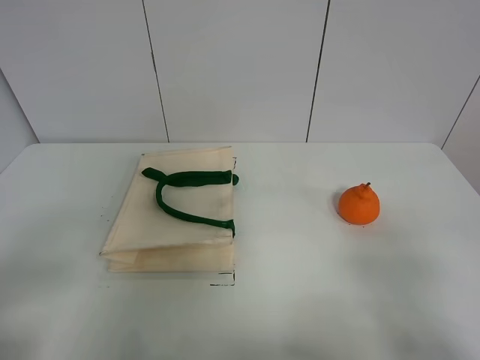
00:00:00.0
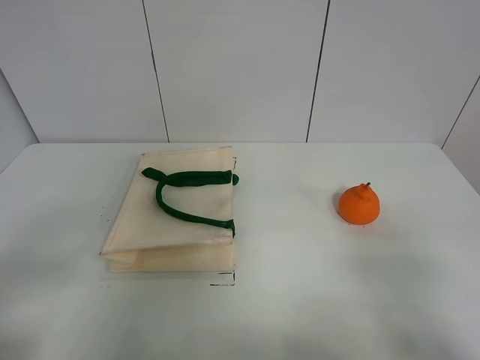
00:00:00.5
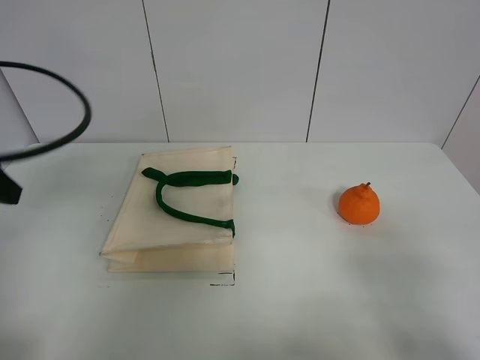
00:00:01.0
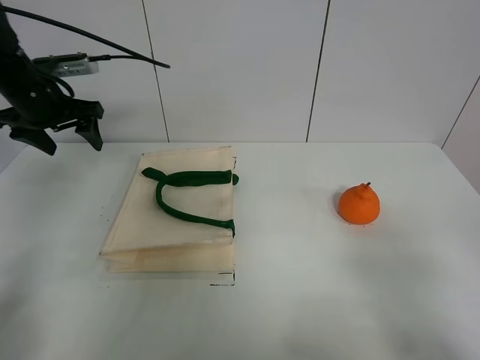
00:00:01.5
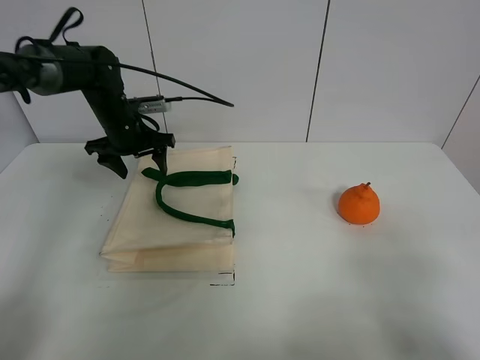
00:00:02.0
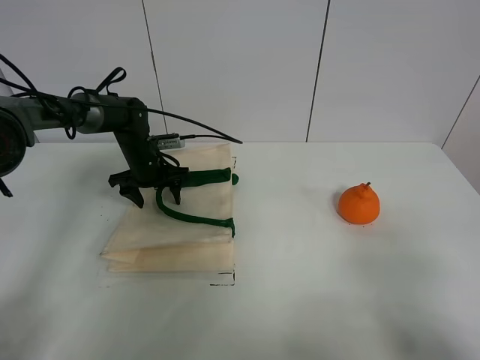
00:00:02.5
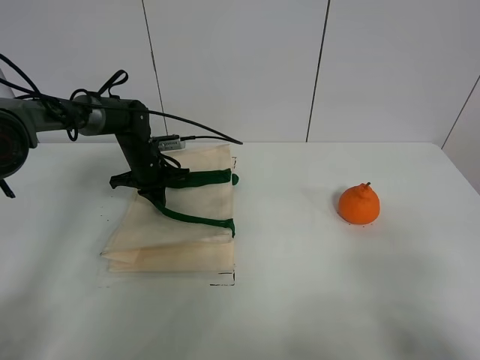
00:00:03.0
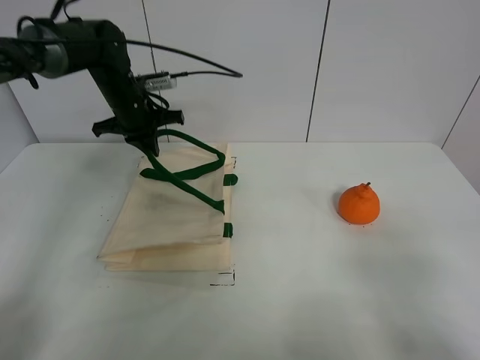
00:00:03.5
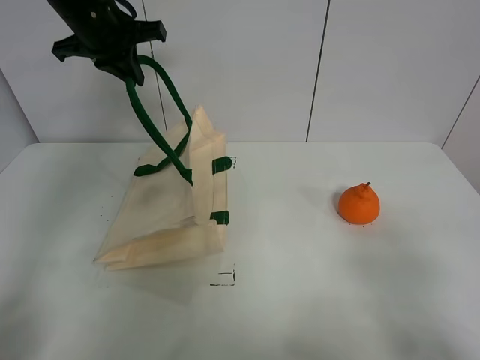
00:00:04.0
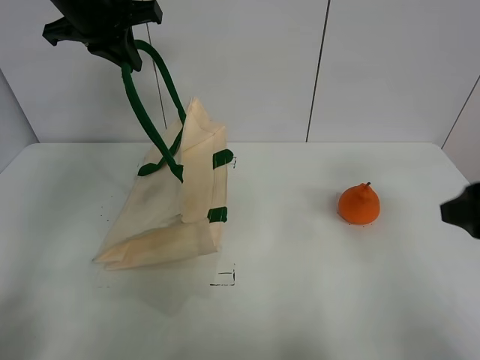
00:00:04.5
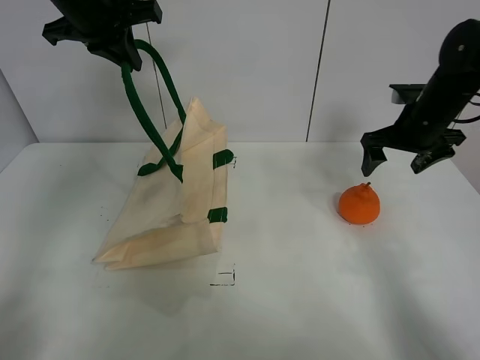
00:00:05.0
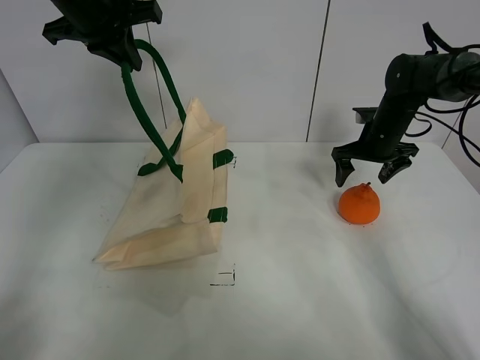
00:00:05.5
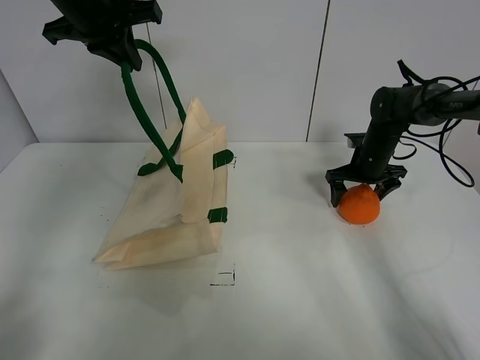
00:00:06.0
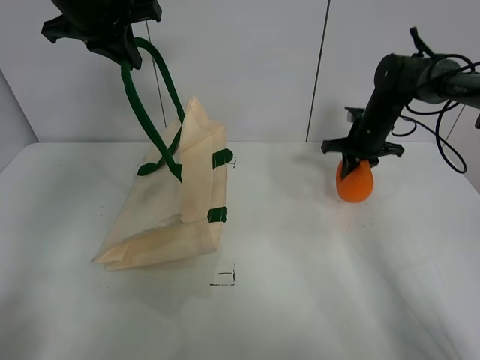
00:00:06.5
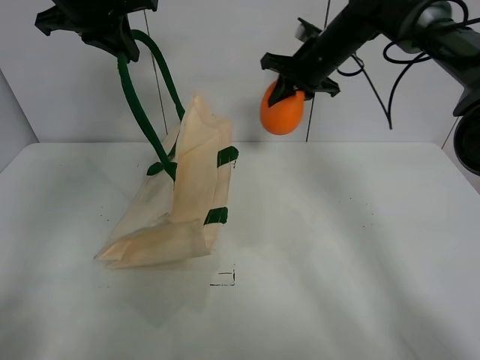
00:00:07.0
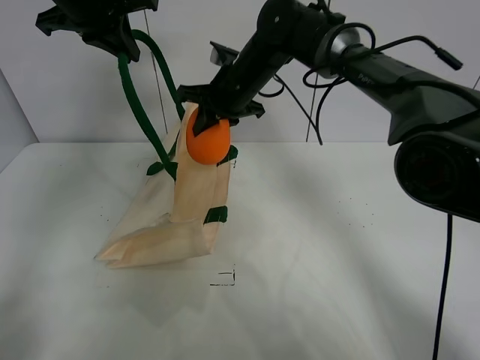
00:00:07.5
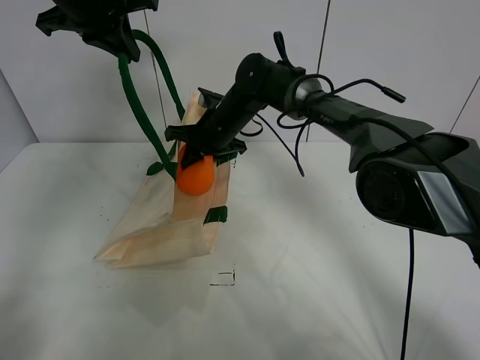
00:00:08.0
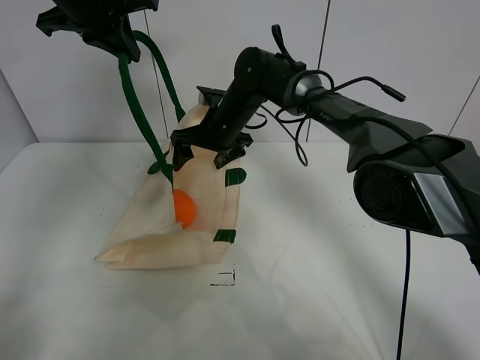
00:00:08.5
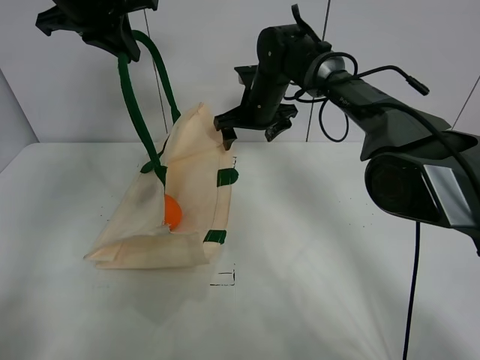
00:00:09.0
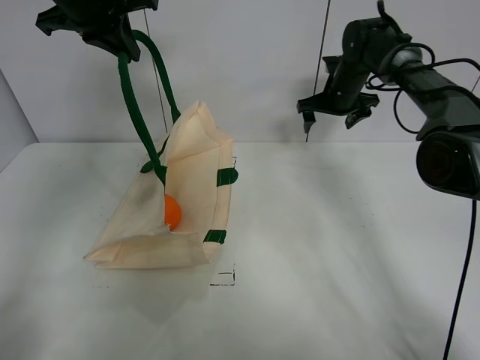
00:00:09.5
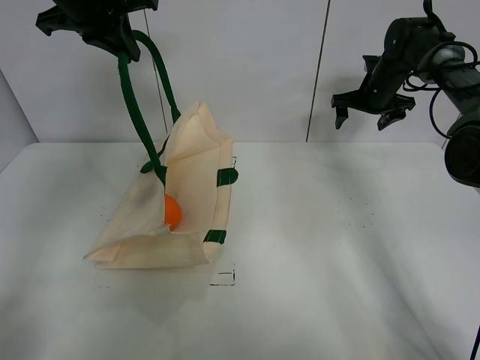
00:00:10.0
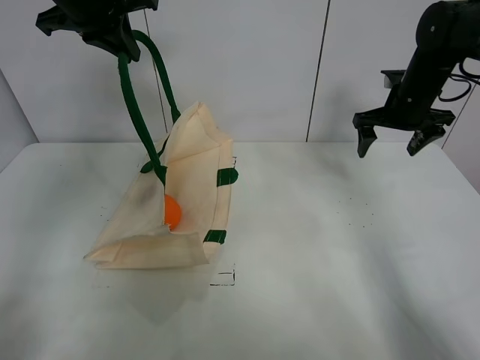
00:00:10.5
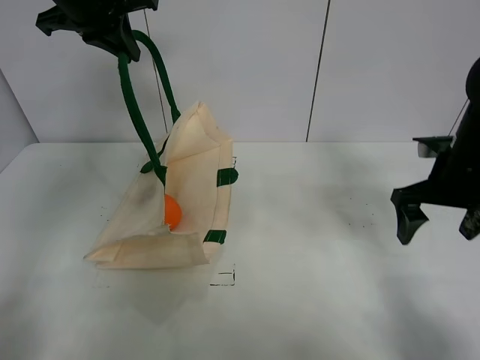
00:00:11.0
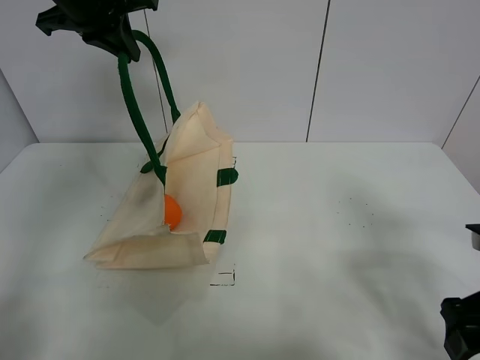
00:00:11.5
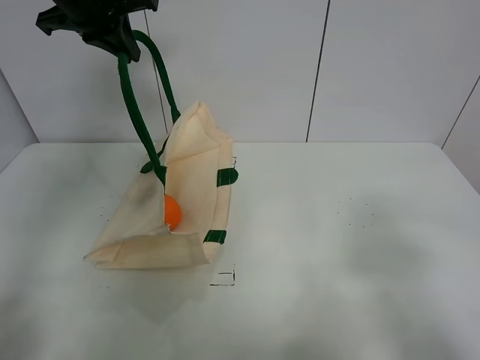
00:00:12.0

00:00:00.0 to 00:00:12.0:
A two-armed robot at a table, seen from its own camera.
Task of the whole recording: open the white linen bag and put the orange in the bag.
Step, 00:00:00.0 to 00:00:04.0: Lift the handbag with left gripper.
Step, 00:00:04.5 to 00:00:06.0: Grasp the orange with right gripper.
Step, 00:00:06.5 to 00:00:08.5: Place the orange in the handbag with right gripper.
00:00:00.0 to 00:00:02.0: The left gripper moves forward, about 50 cm.
00:00:02.0 to 00:00:04.0: The left gripper travels upward by about 20 cm, and closes.
00:00:04.0 to 00:00:06.0: The right gripper goes about 50 cm forward.
00:00:06.0 to 00:00:08.0: The right gripper shifts some 30 cm to the left, and closes.
00:00:08.0 to 00:00:10.0: The right gripper is displaced to the right by approximately 30 cm, and opens.
00:00:10.0 to 00:00:12.0: The right gripper goes some 50 cm backward.

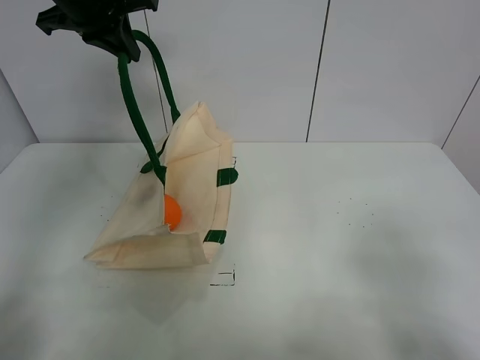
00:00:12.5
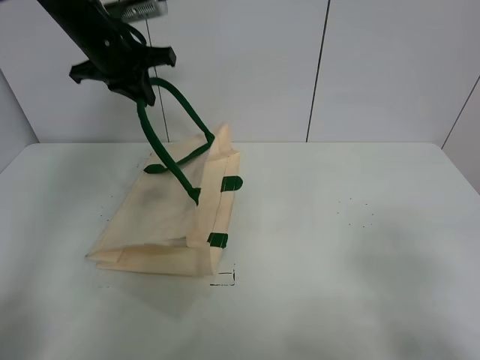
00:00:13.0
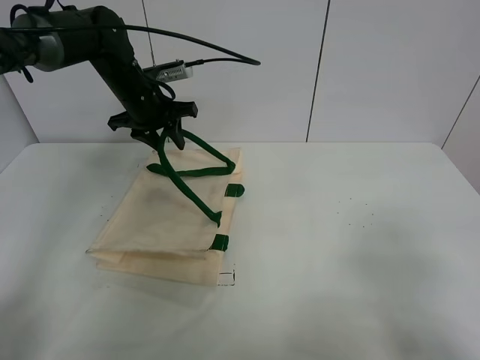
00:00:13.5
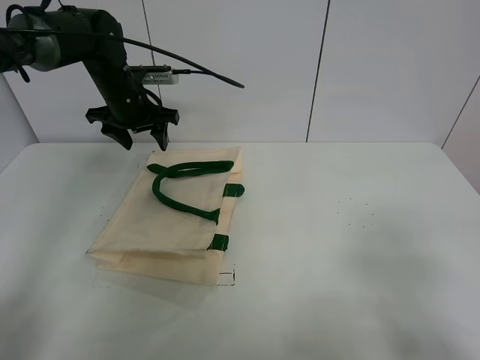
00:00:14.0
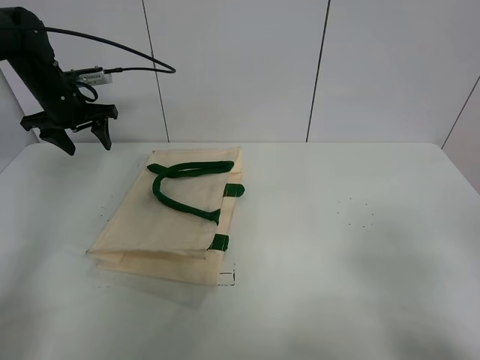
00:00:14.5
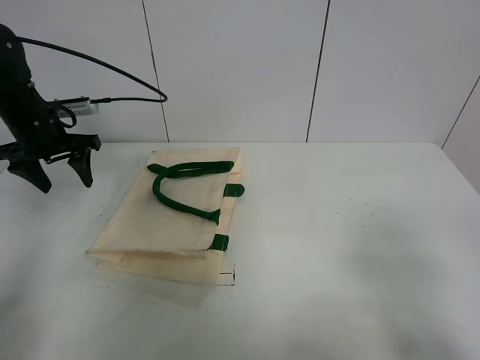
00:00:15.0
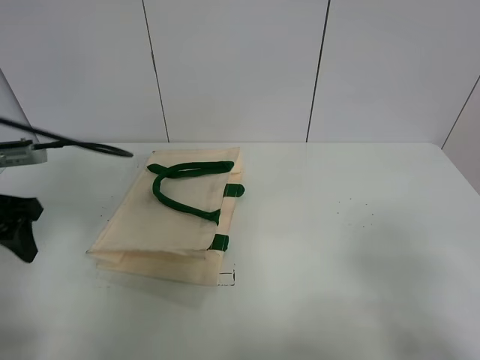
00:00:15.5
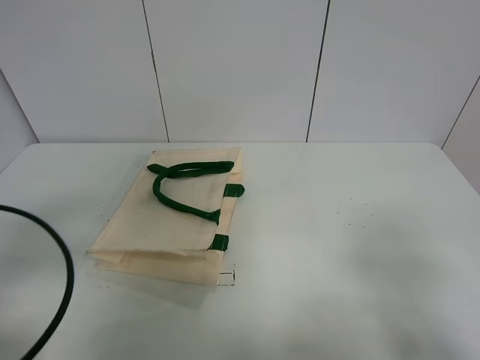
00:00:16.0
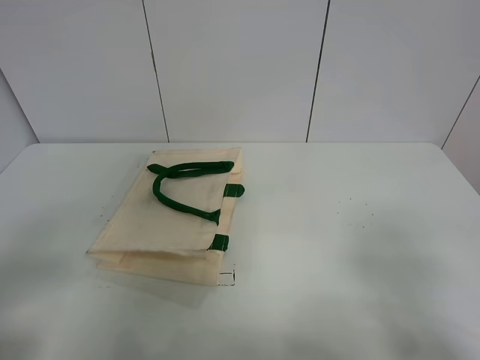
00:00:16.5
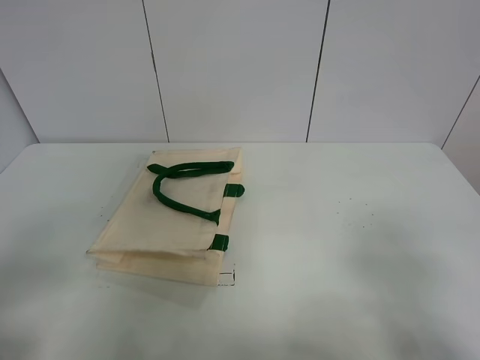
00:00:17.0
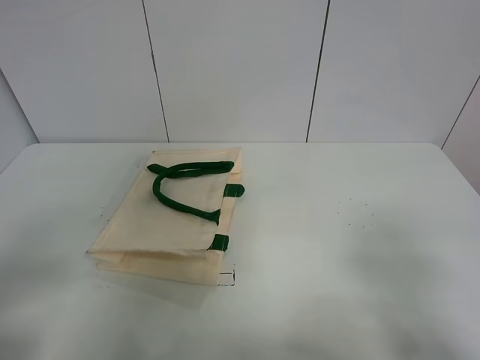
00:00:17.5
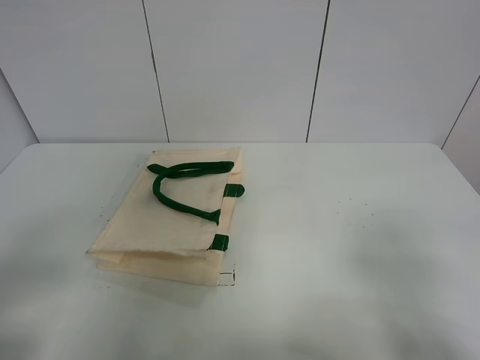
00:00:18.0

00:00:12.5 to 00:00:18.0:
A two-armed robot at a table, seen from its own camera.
Task of the whole recording: open the white linen bag and put the orange in the bag.
00:00:12.5 to 00:00:14.5: The left gripper moves downward, to the left and forward, approximately 20 cm, and opens.
00:00:14.5 to 00:00:16.0: The left gripper moves backward, roughly 40 cm.
00:00:16.0 to 00:00:18.0: The left gripper is displaced backward by some 10 cm.
